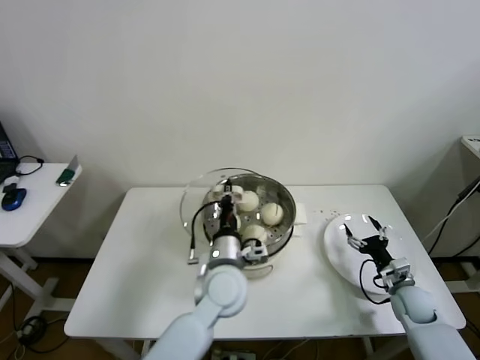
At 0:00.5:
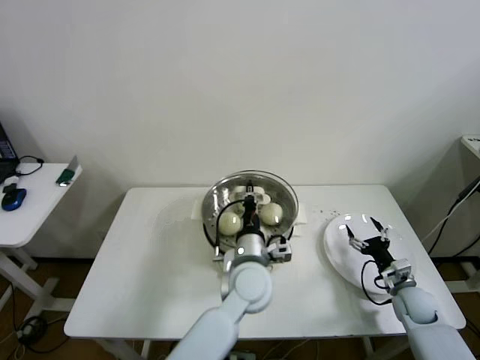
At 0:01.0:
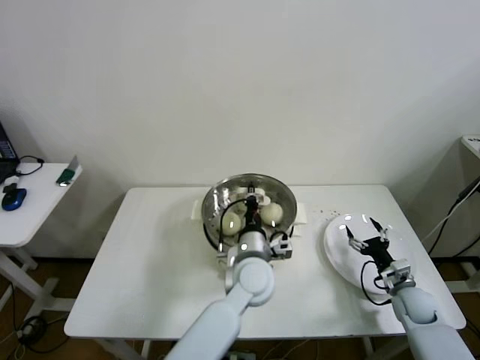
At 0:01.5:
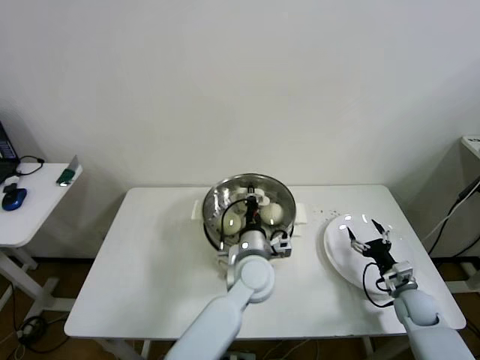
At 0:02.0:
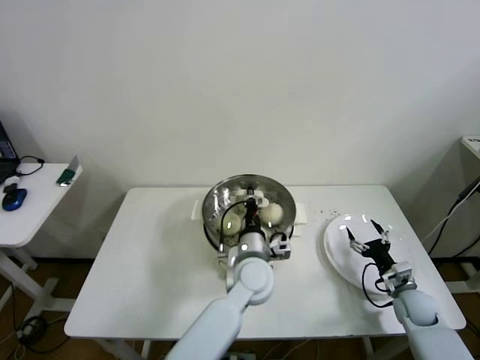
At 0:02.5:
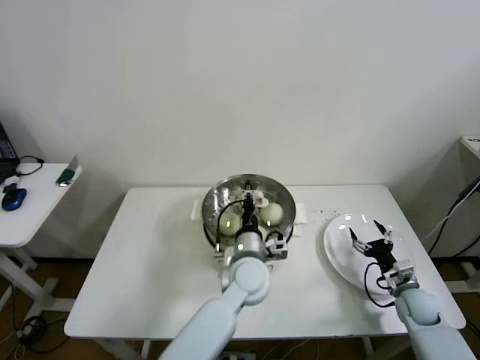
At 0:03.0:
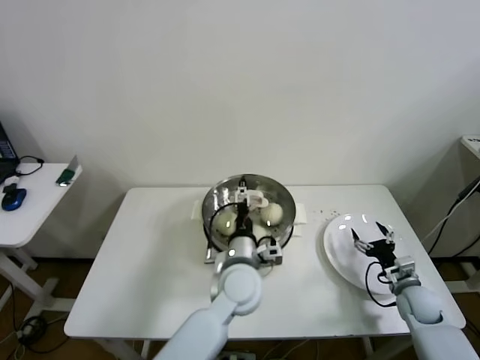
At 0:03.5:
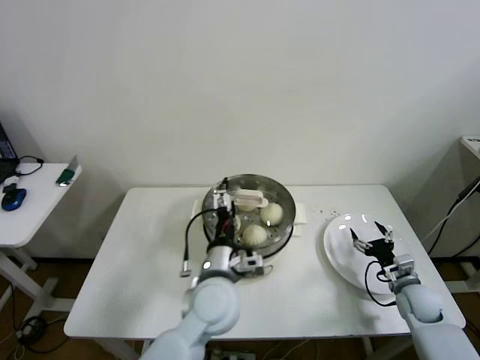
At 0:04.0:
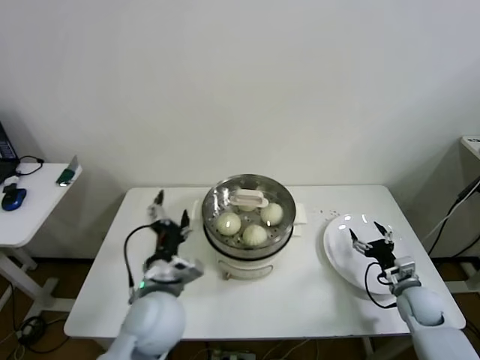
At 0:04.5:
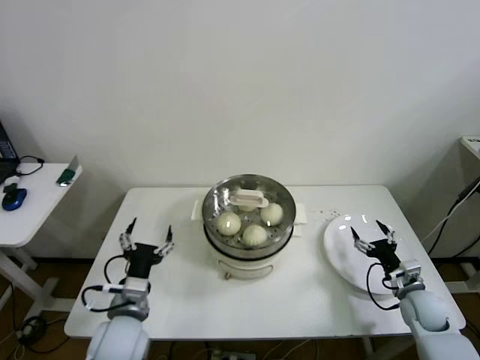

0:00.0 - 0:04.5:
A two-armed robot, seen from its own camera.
Step, 0:00.0 - 0:03.0: Place the pot lid on the steamer with left gripper.
0:00.0 - 0:02.0: The left gripper moves to the right, roughly 5 cm.
0:02.0 - 0:04.5: The left gripper moves to the left and backward, approximately 25 cm, and opens its fingers.
